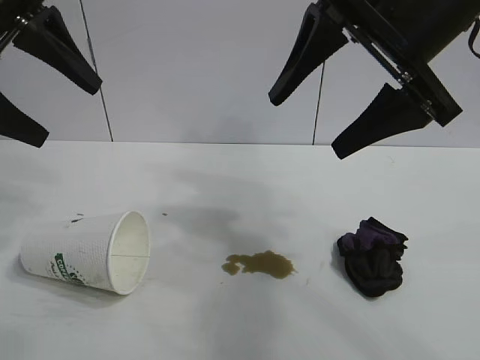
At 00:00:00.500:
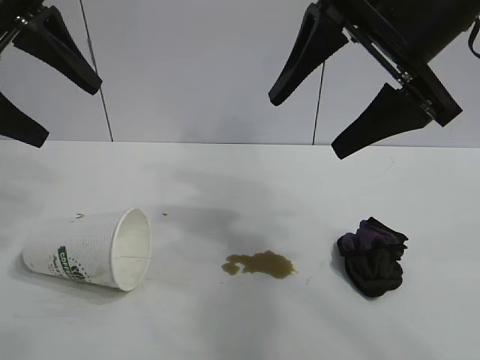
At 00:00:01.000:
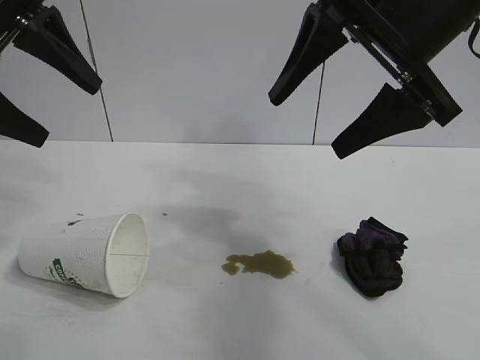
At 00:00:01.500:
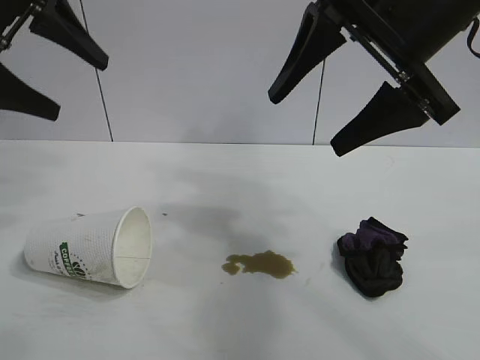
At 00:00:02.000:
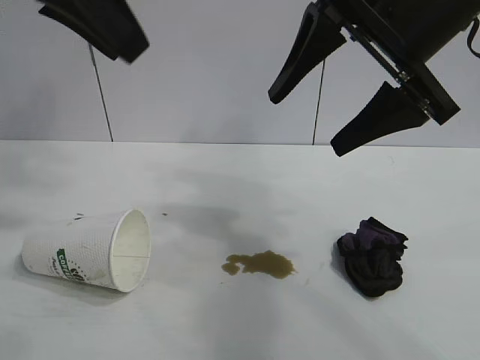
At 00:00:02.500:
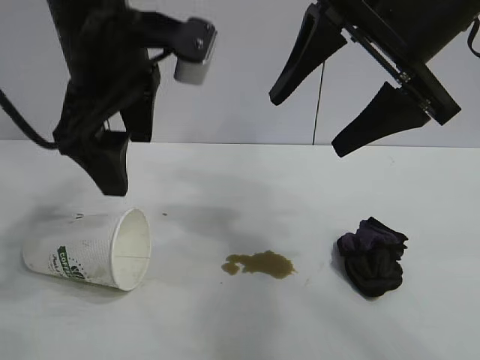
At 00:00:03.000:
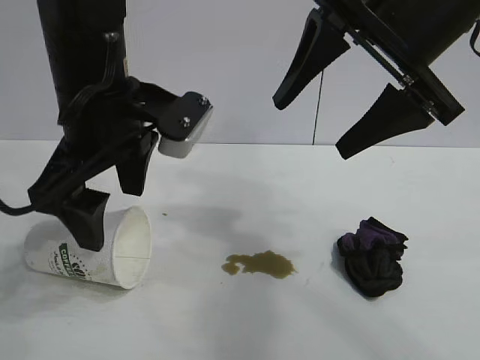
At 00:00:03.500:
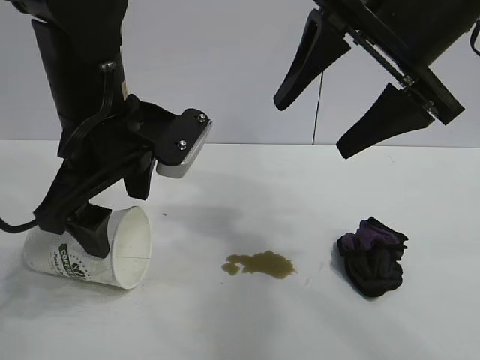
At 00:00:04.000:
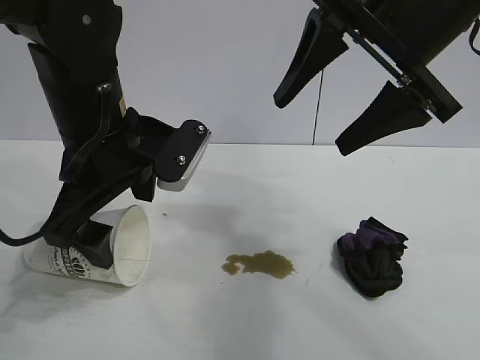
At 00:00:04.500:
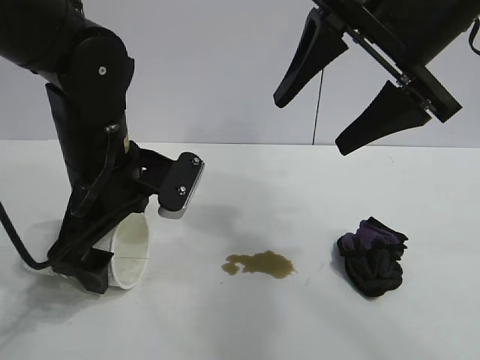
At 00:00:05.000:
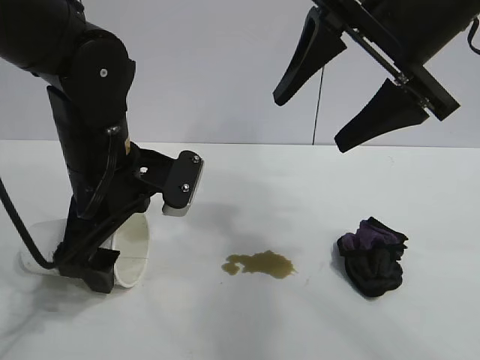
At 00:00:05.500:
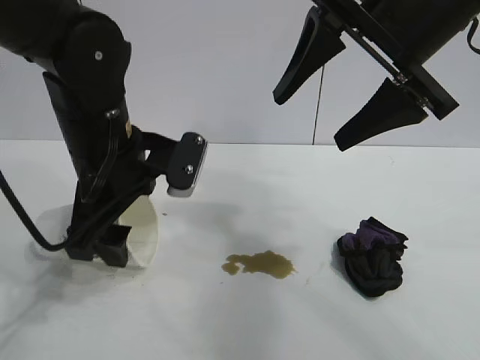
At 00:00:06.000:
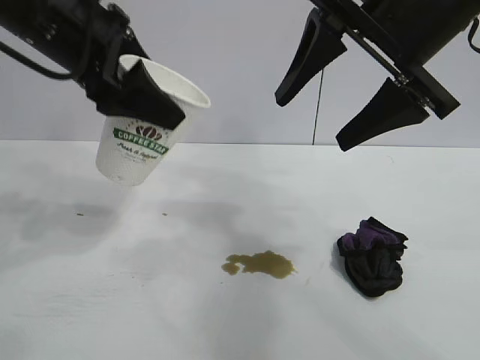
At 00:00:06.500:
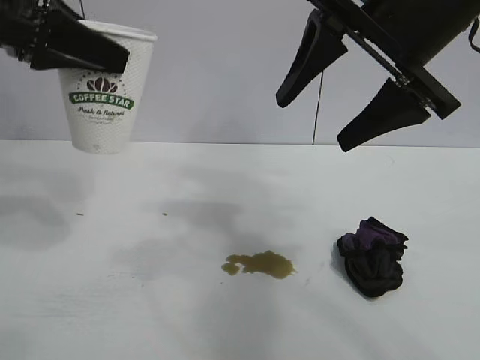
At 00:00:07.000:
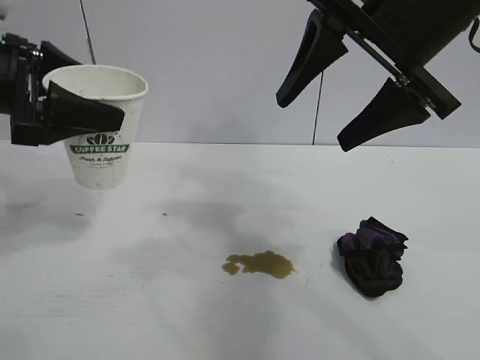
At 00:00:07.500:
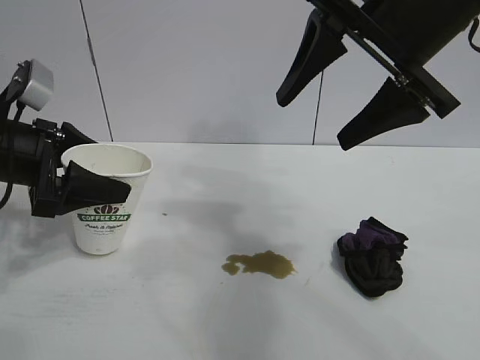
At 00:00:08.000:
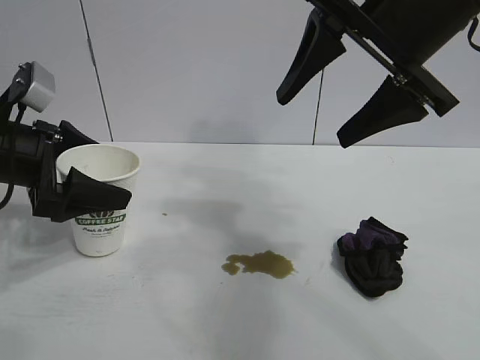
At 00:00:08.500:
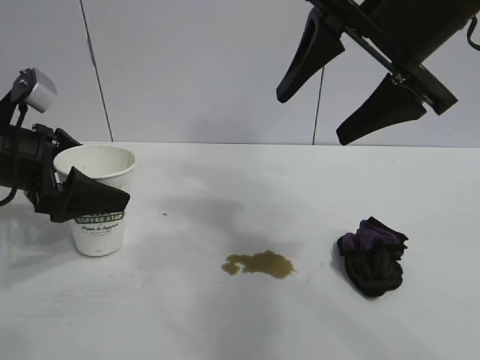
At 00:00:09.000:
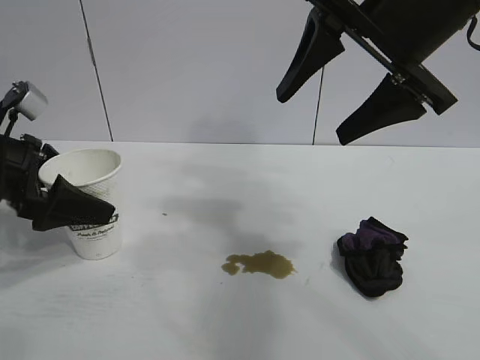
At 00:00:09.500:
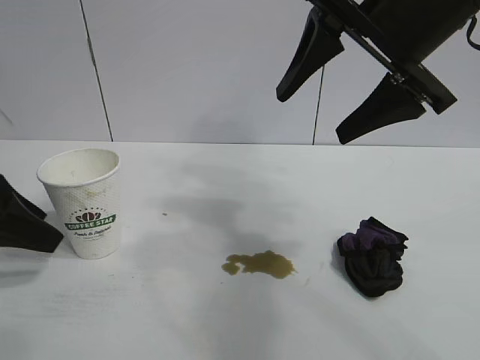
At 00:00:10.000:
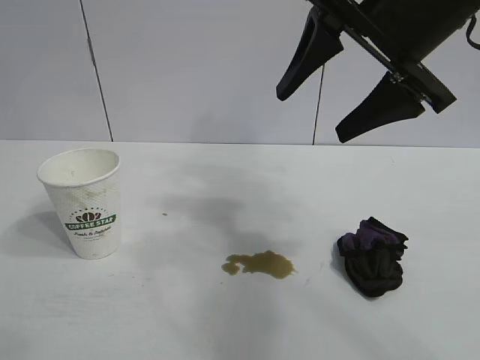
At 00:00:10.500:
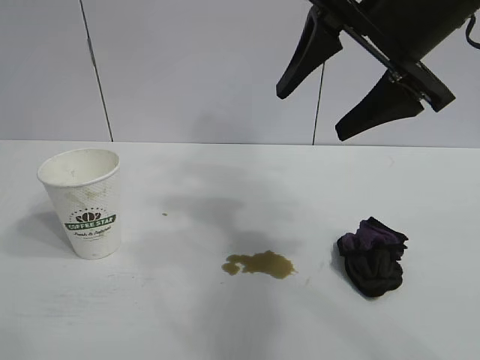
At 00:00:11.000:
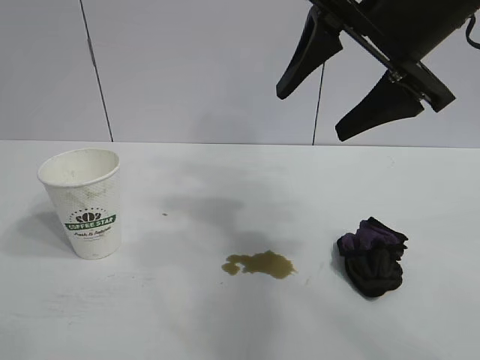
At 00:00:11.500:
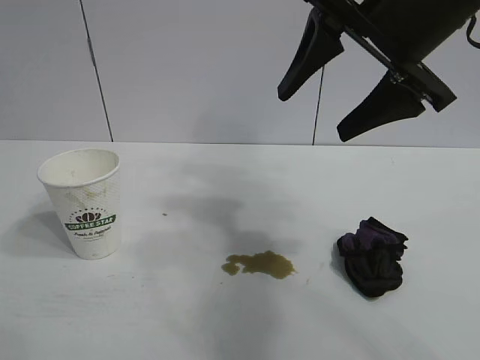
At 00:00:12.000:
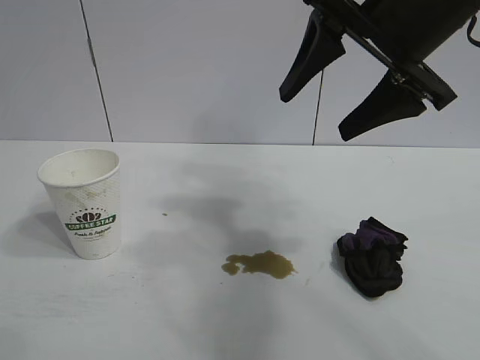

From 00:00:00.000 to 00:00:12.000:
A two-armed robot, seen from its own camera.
Task of the whole recording: the left gripper pick up the fallen cup and place it upright, the right gripper grasp the black rag and wipe the stain on the table, the right gripper put the black rag back in its original position.
Step, from 00:00:01.500 to 00:00:05.000: Grasp the paper cup with left gripper.
Step, from 00:00:05.500 to 00:00:08.500: Stand the paper cup upright with left gripper.

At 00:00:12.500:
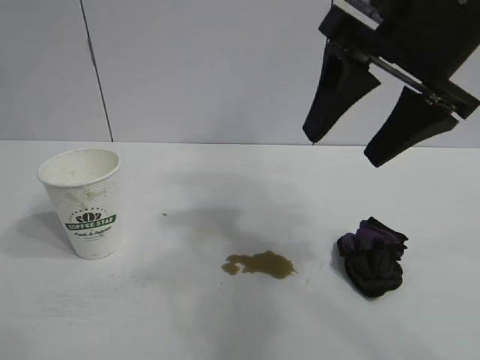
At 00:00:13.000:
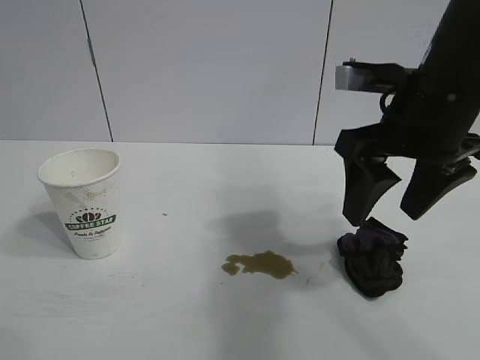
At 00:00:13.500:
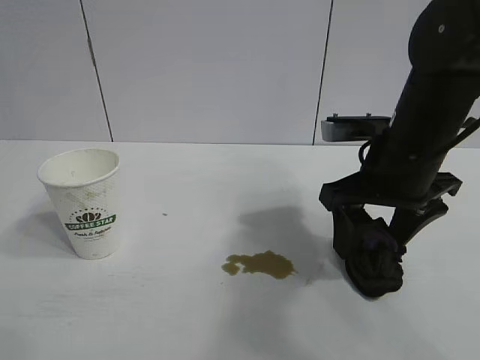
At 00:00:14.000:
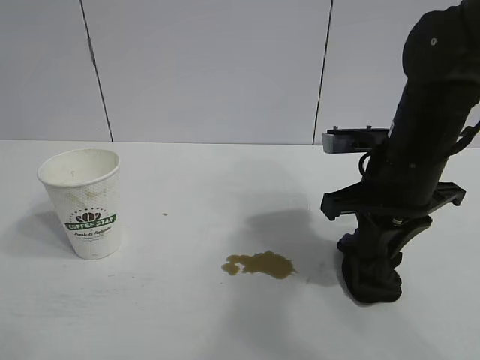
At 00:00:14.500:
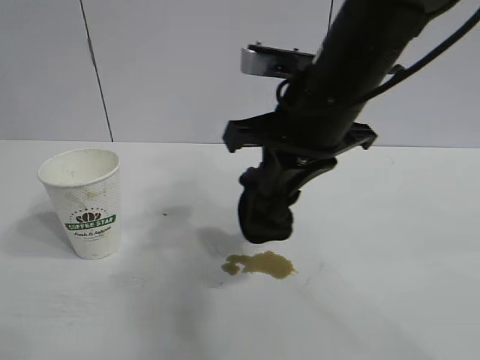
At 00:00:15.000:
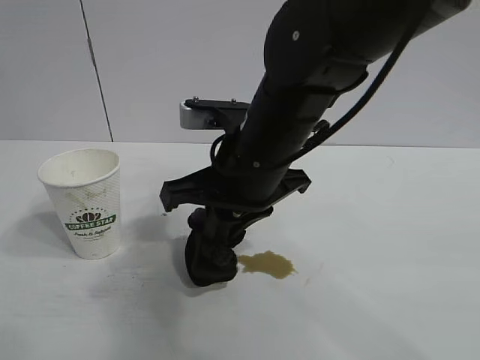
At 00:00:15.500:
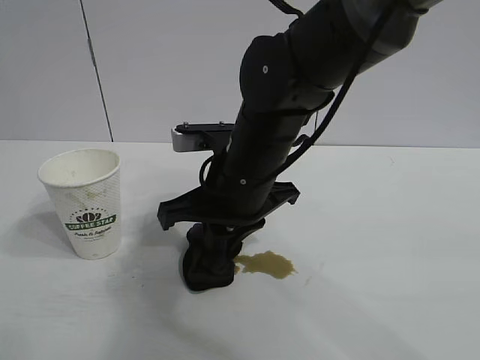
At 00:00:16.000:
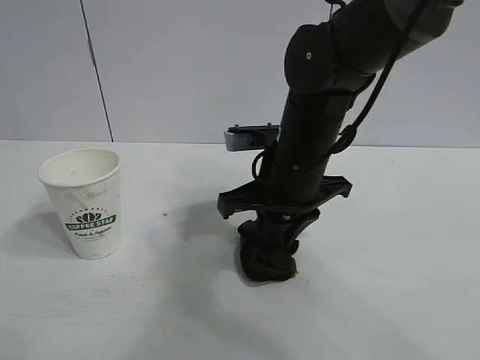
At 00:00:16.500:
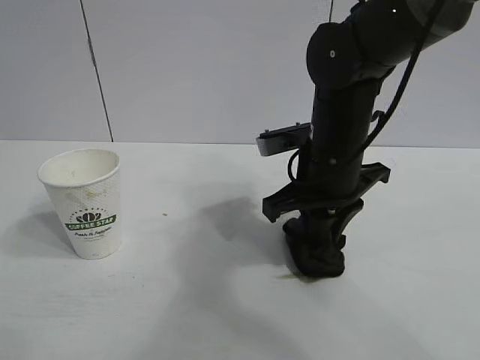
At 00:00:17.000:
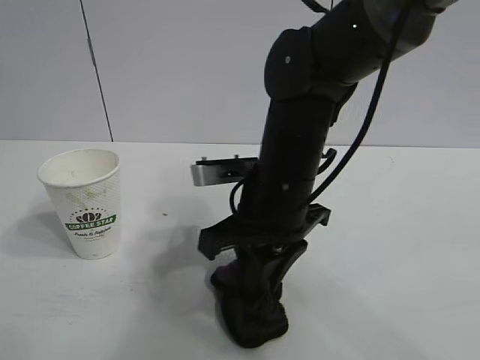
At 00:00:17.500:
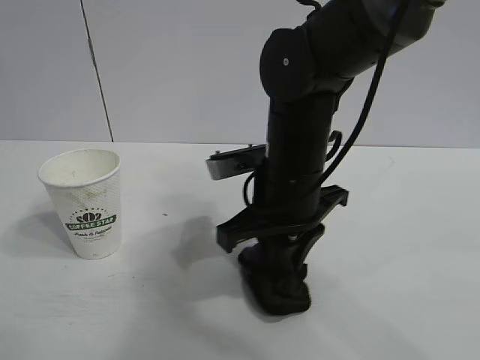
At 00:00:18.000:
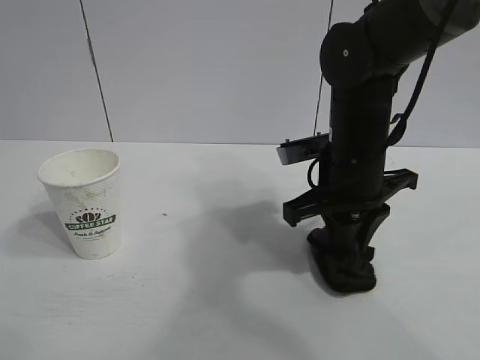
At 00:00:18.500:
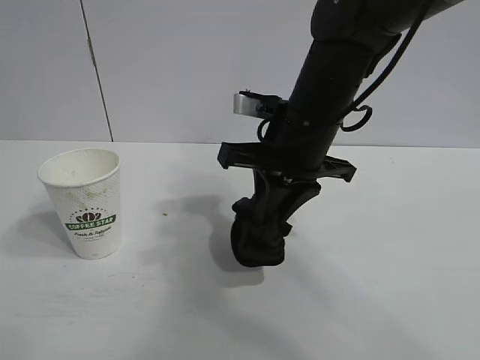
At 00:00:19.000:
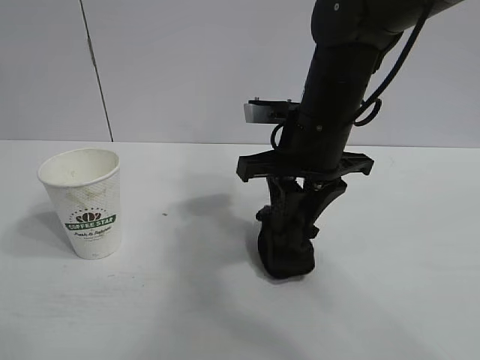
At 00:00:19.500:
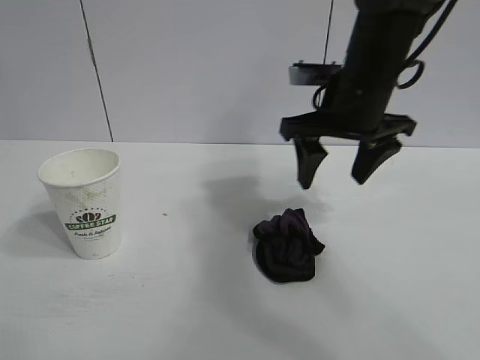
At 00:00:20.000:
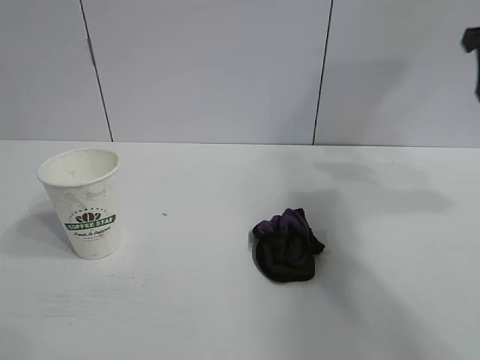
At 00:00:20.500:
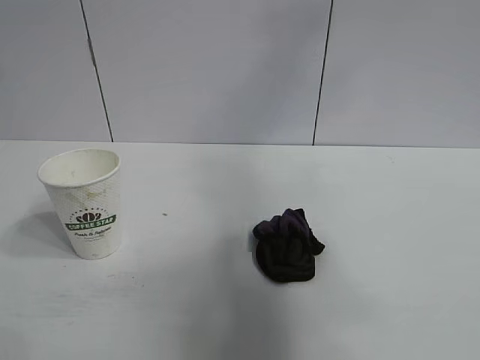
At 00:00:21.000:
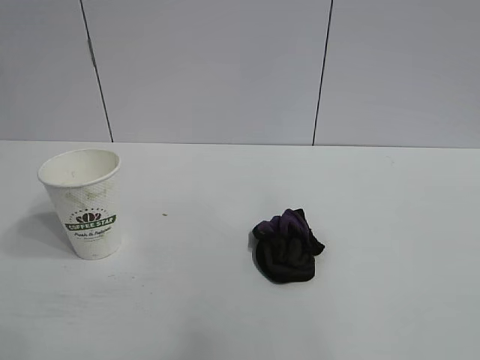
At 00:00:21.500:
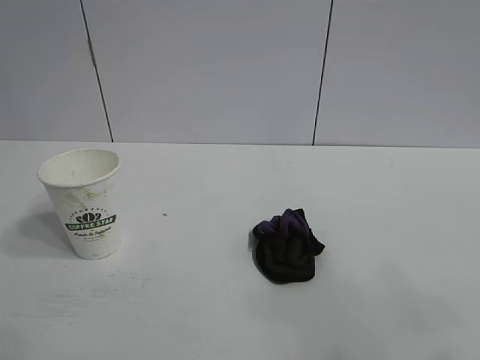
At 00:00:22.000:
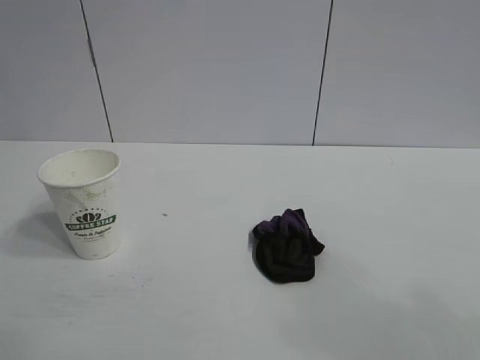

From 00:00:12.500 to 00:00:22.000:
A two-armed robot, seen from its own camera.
Task of the whole recording: the left gripper pick up the fallen cup and place it upright, the right gripper grasp the black rag and wipe the stain on the table, the right gripper put the black rag back in its original position.
Step, from 00:00:14.000 to 00:00:18.000: Wipe the stains off the table with the rag with right gripper.
Step, from 00:00:18.500 to 00:00:19.000: Place the rag on the table with right gripper.
